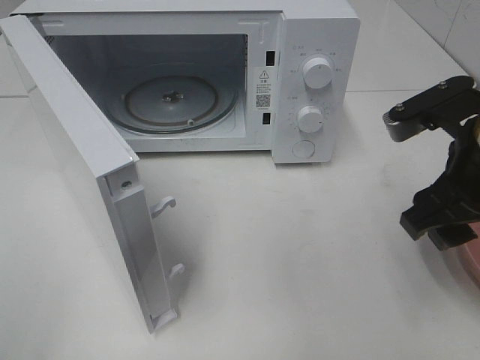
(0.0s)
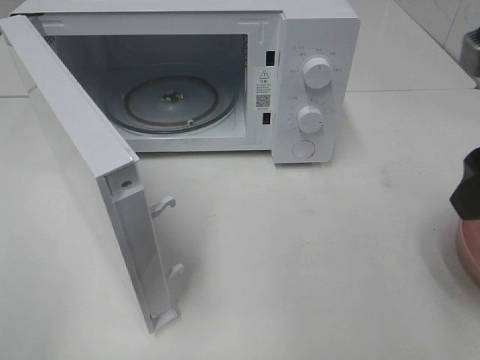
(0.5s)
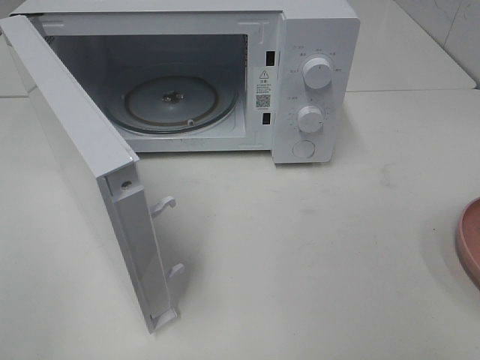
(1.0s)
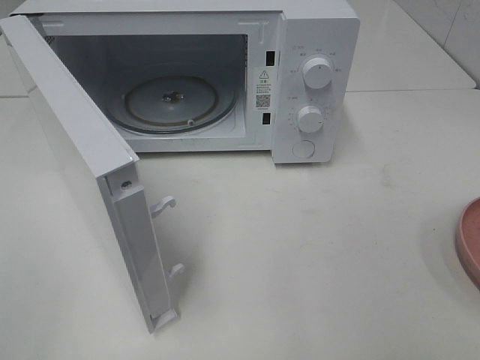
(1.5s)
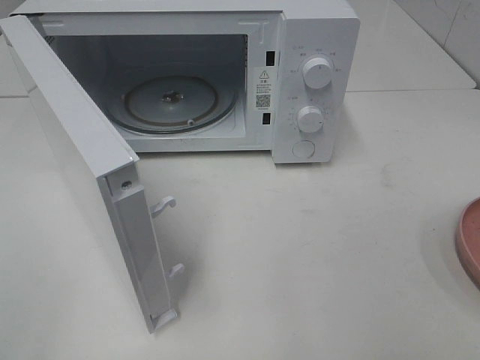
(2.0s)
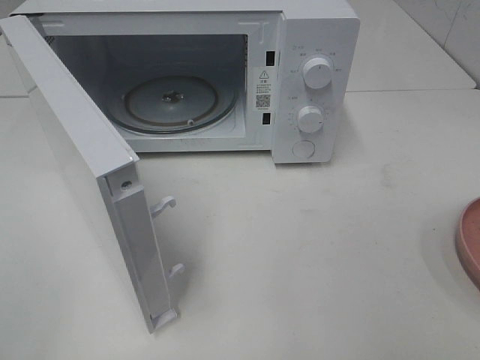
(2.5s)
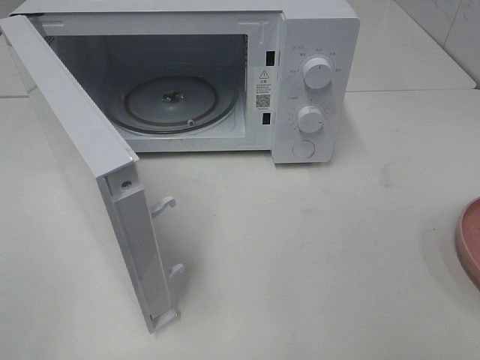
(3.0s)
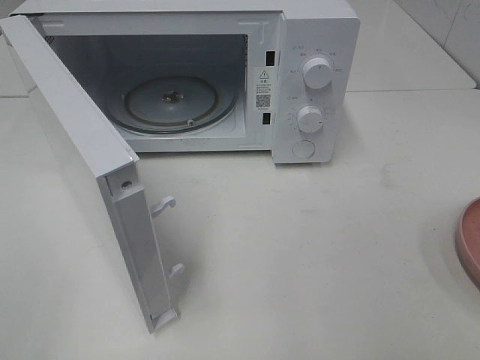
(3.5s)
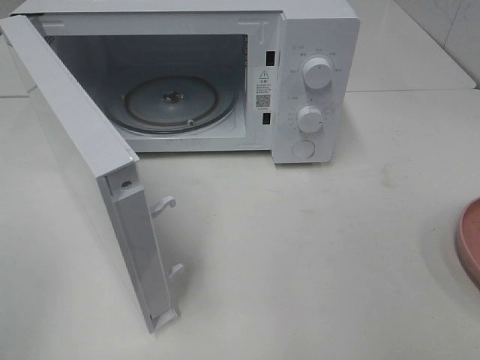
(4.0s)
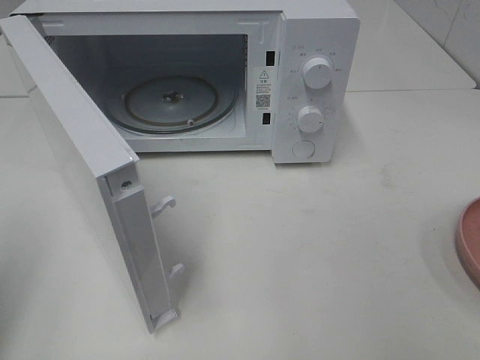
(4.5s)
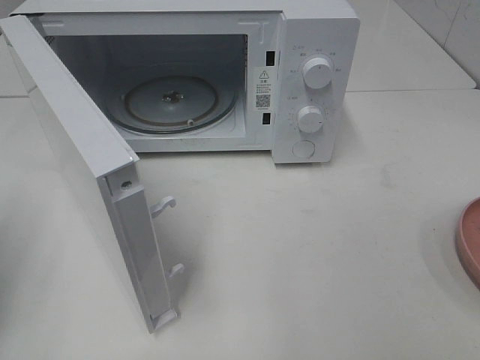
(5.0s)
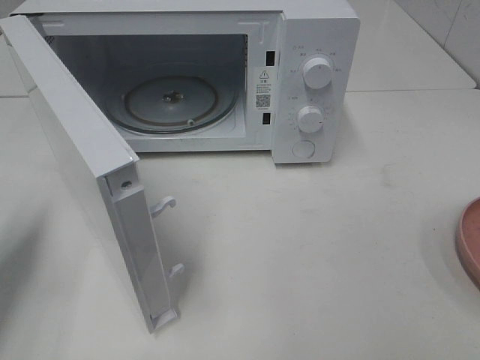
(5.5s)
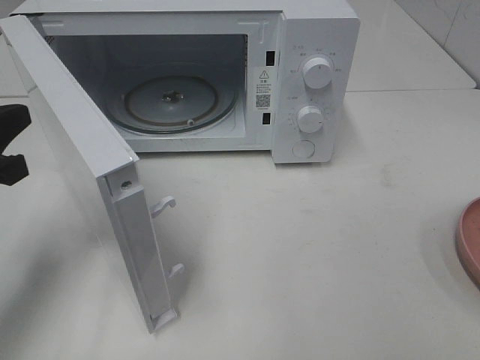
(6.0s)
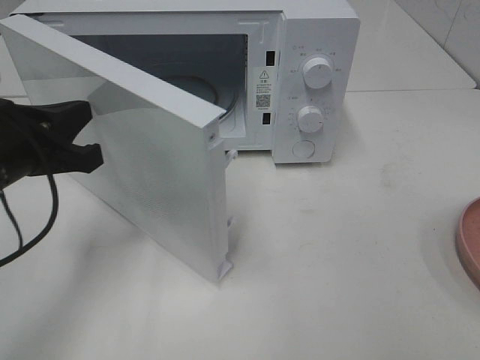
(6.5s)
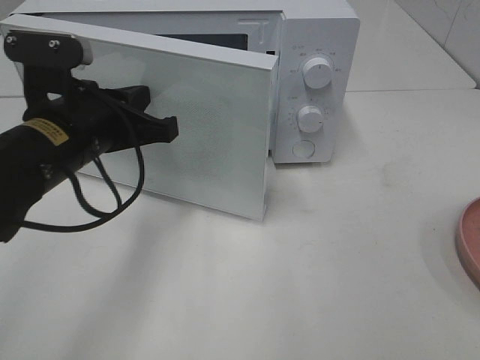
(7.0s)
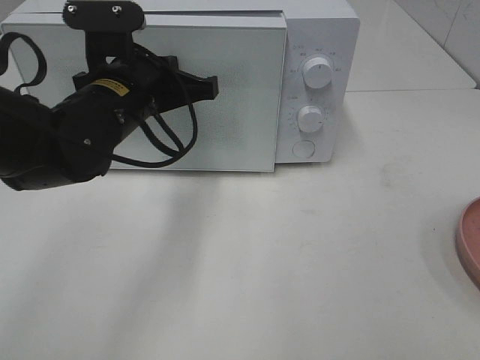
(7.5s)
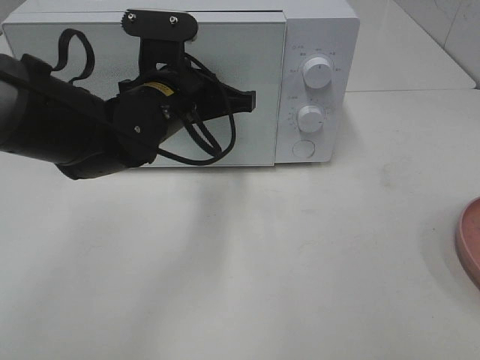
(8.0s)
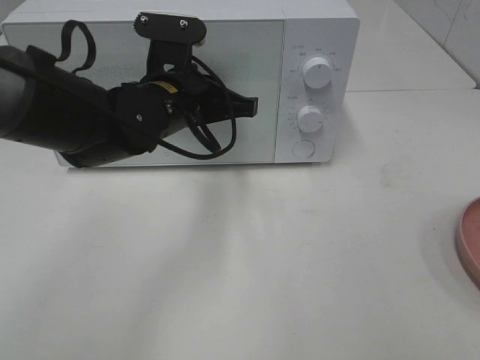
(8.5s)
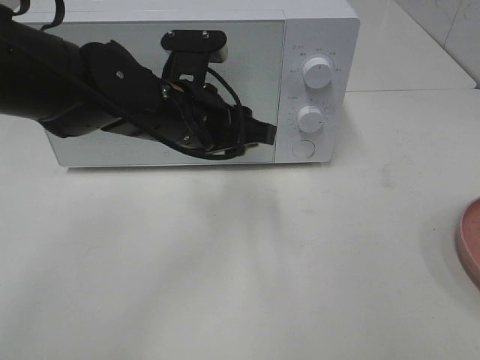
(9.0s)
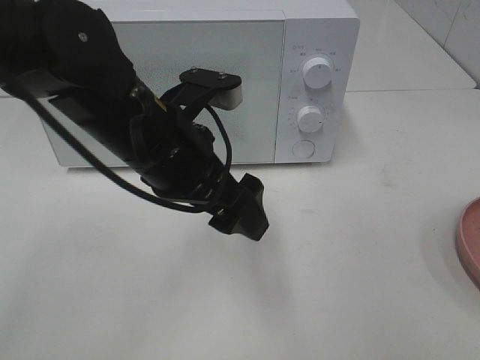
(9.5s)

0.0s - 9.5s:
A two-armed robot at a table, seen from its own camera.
Task of the whole recording: Heat the burger.
Step, 0.0s - 8.5s: Left hand: close the microwave door.
0.0s - 2.0s: The right gripper shifts some 25 cm backward and to the right.
4.0s - 5.5s: The left gripper moves forward and downward, about 20 cm, and closes.
5.5s - 7.5s: The left gripper heads to the right and forward, covering about 25 cm.
7.5s - 9.5s: The left gripper heads backward, covering about 5 cm, and opens up.

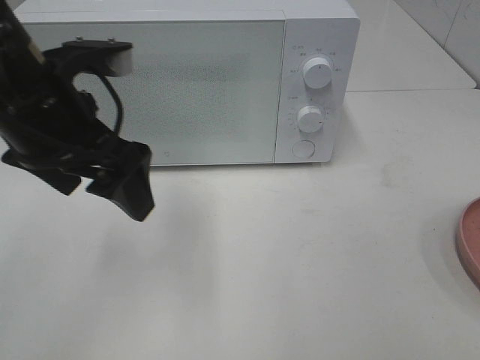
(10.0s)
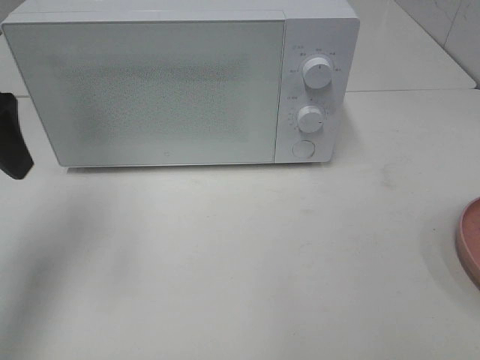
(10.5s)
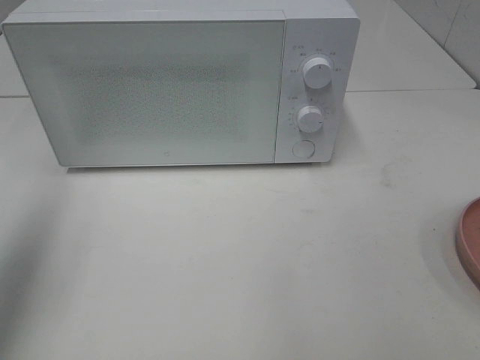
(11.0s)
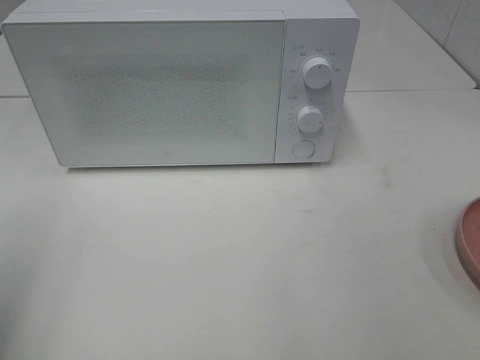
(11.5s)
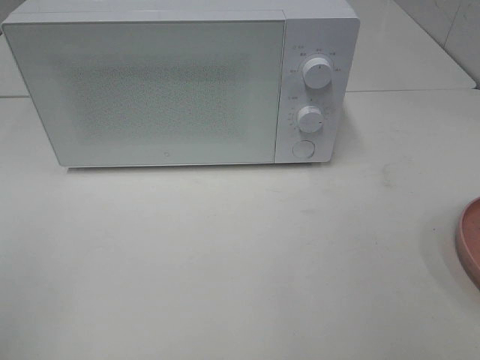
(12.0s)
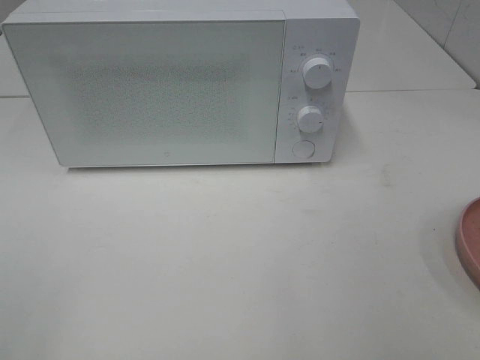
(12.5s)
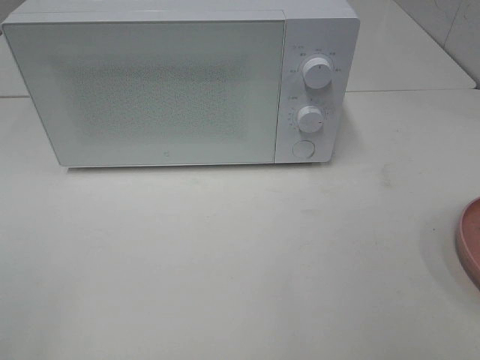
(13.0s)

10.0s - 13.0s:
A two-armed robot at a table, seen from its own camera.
Task of the whole recording: Heat the burger.
10.0s - 11.5s: The left gripper moves to the left and backward, roughly 20 cm.

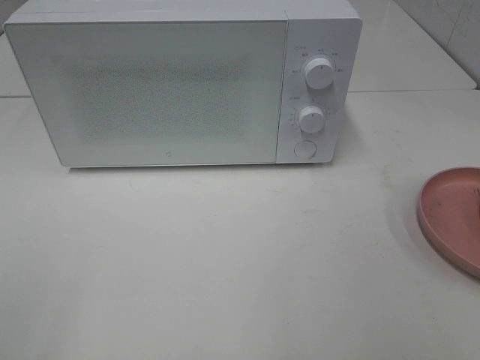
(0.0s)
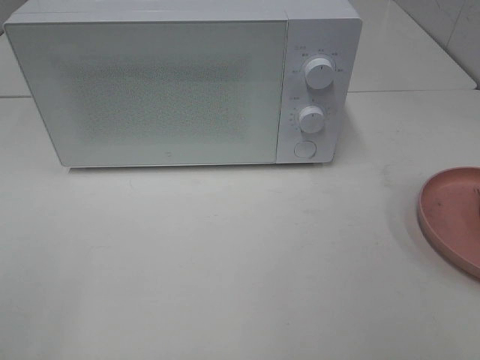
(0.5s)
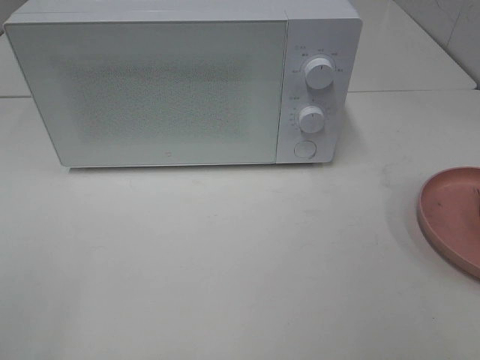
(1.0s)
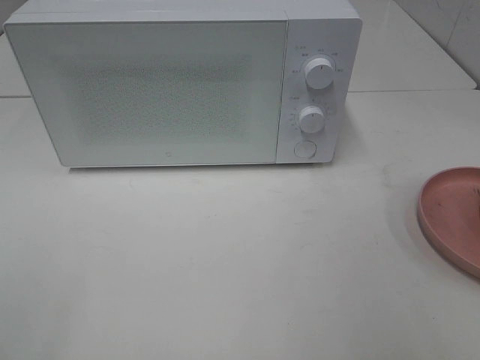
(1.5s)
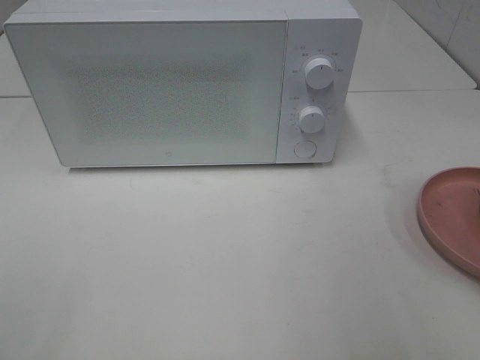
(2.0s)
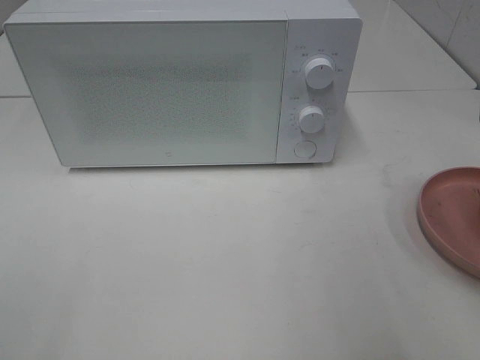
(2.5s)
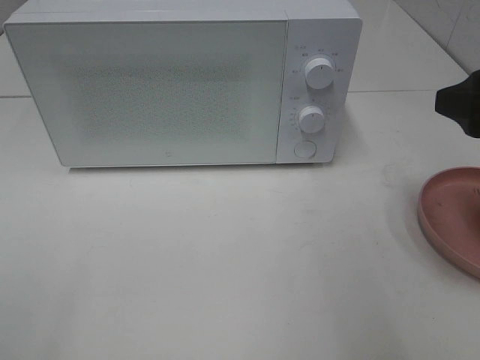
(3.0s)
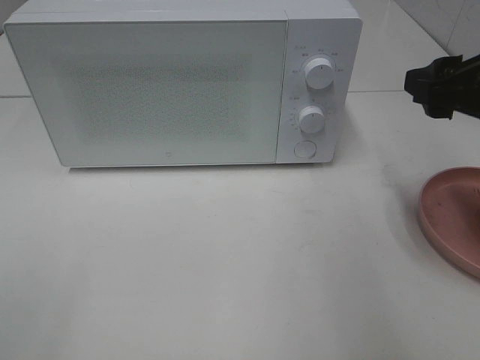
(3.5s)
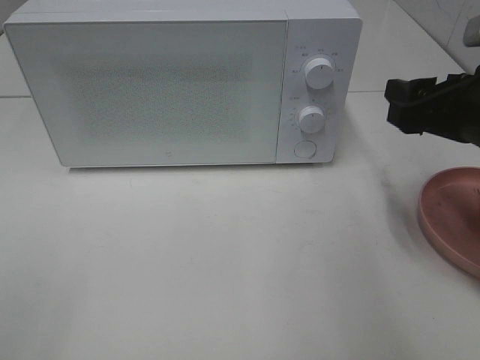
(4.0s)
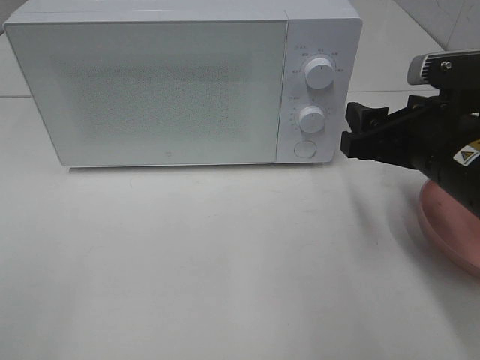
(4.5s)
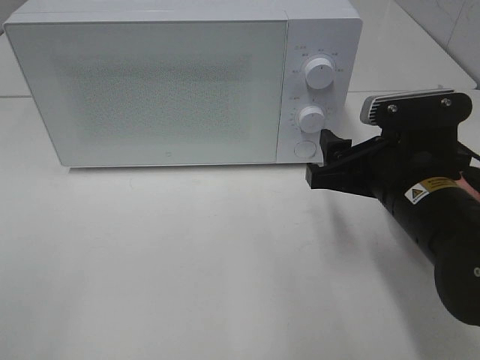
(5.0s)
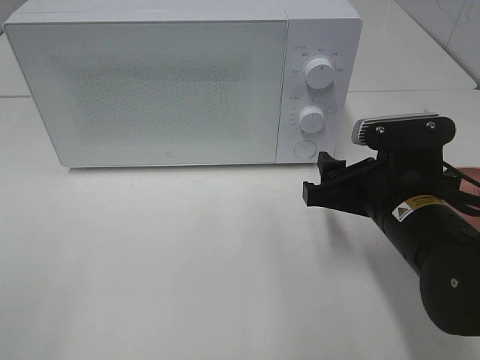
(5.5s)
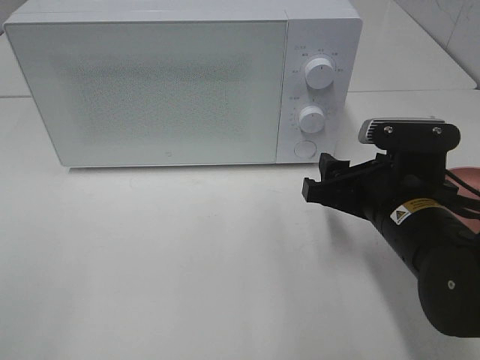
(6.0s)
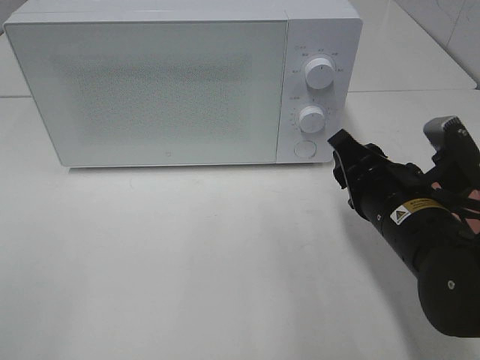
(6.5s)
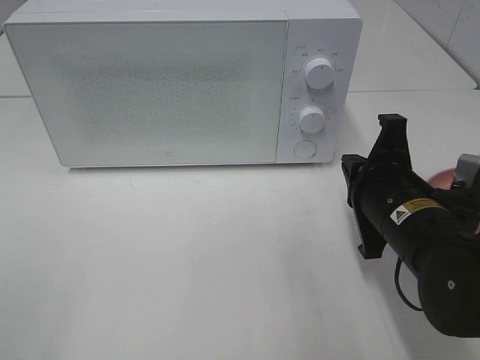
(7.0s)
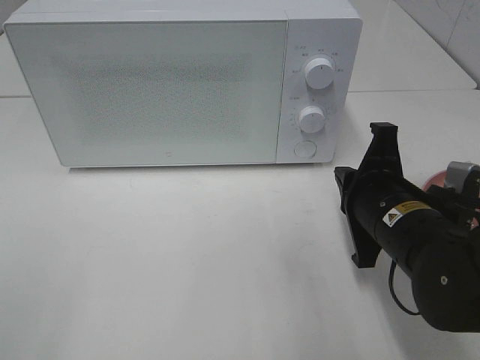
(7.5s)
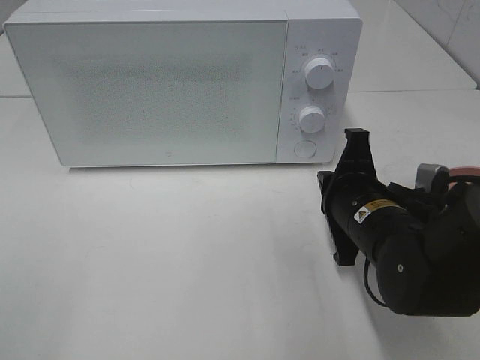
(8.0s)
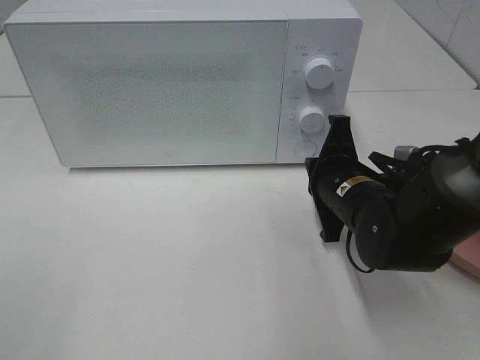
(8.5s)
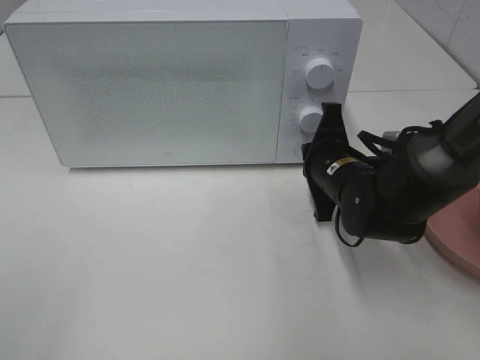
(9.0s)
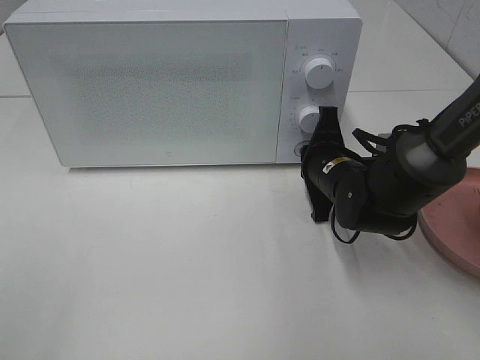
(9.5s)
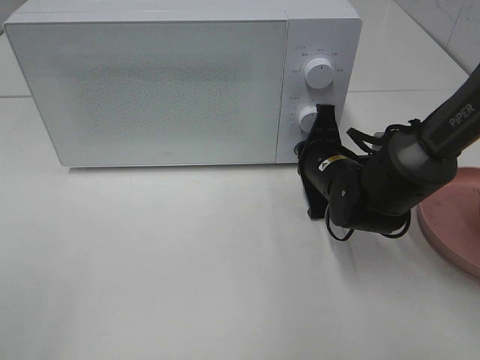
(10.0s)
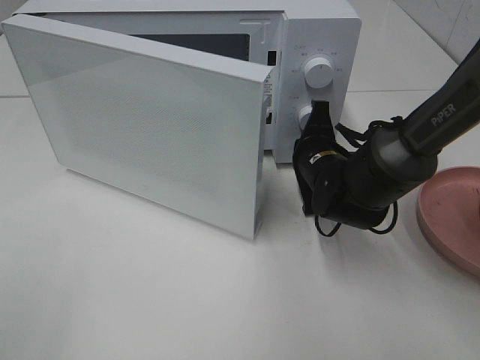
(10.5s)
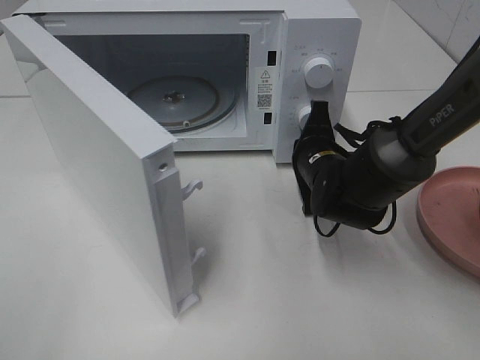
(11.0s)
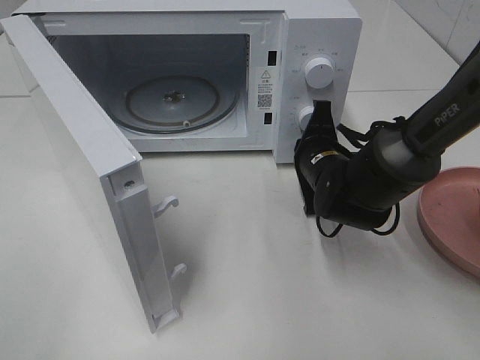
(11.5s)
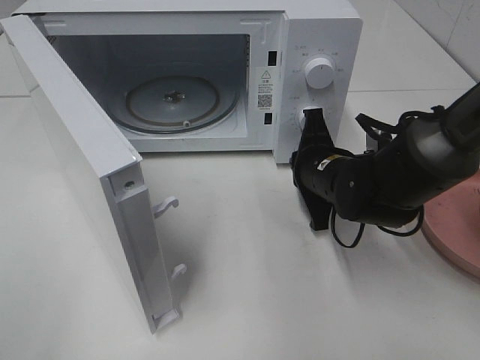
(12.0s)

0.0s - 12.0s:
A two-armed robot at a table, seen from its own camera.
Task of the whole recording: Heat the burger.
2.0s - 4.0s: The right gripper moves forward and downward, approximately 15 cm.
4.0s - 6.0s: The right gripper moves downward and to the left, roughly 10 cm.
6.0s - 8.0s: The right gripper closes up.
8.0s - 10.0s: The right gripper moves forward, about 10 cm.

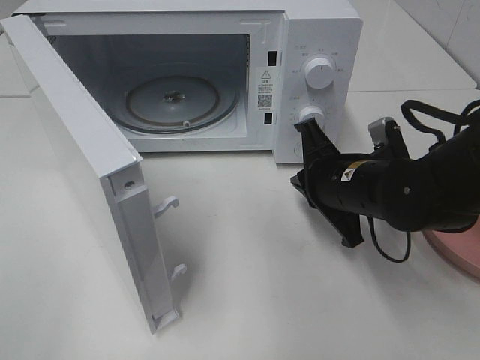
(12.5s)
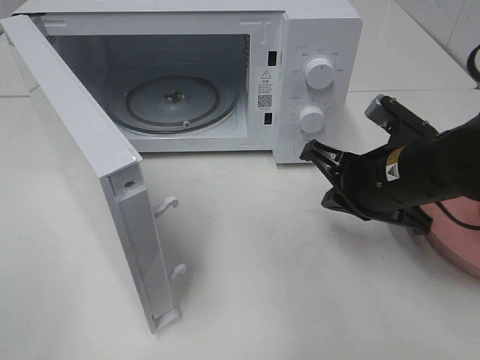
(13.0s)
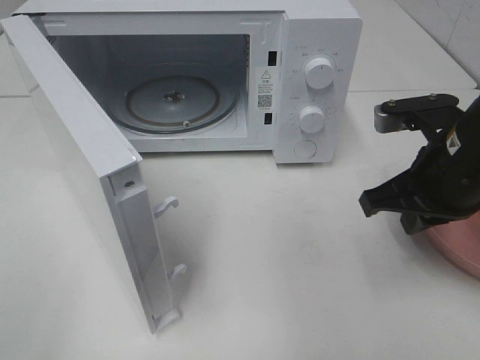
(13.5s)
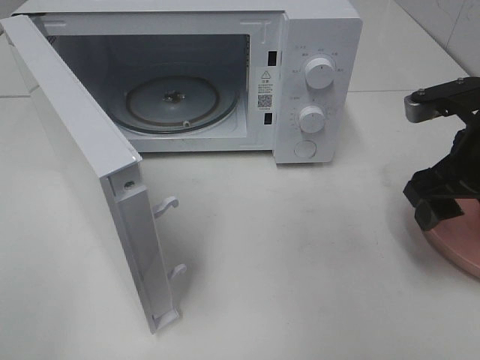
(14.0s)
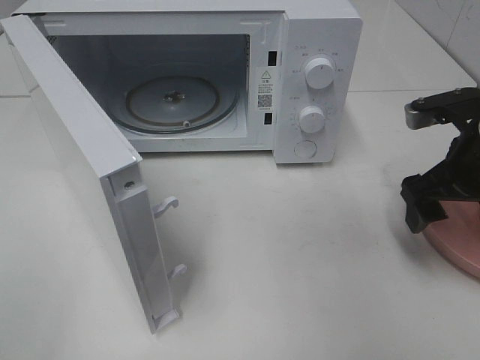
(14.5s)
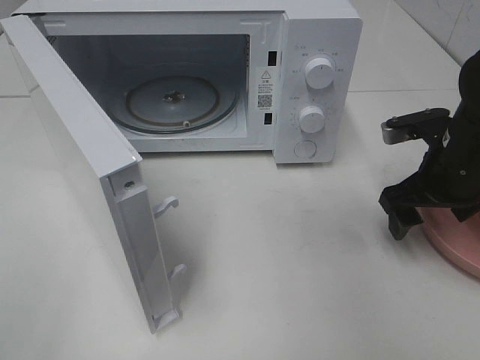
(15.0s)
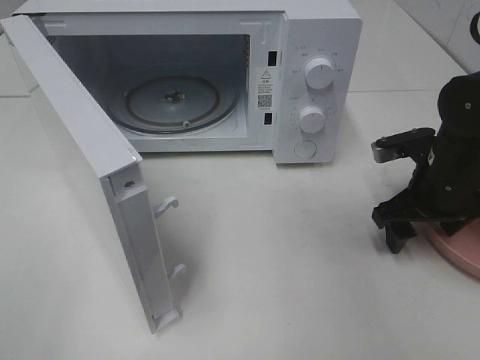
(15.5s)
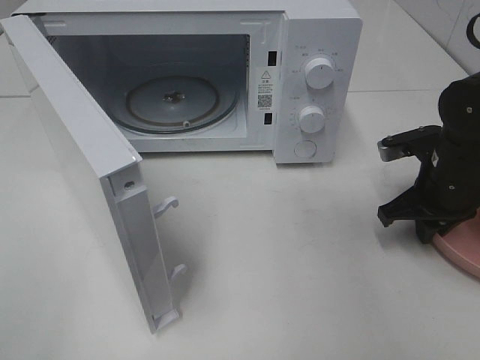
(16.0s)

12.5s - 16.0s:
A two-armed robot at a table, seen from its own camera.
Task of the whole recording: Heat the burger.
12.5s - 14.5s: The right gripper shifts approximately 10 cm to the right and upward, and opens.
14.5s - 16.0s: The right gripper heads downward, covering approximately 5 cm, and closes up.
